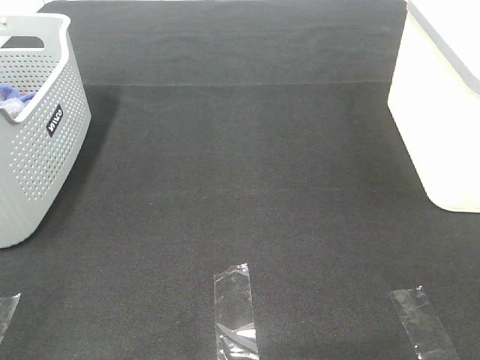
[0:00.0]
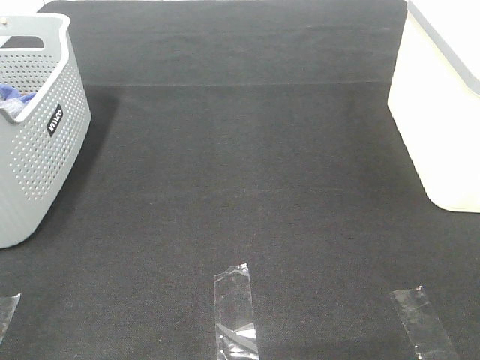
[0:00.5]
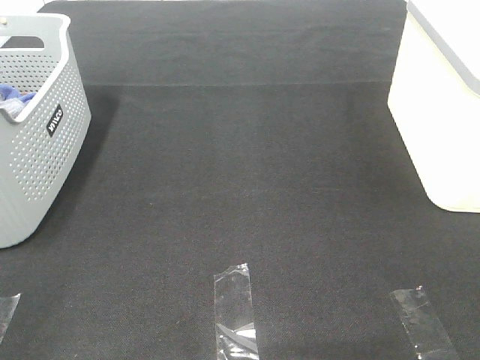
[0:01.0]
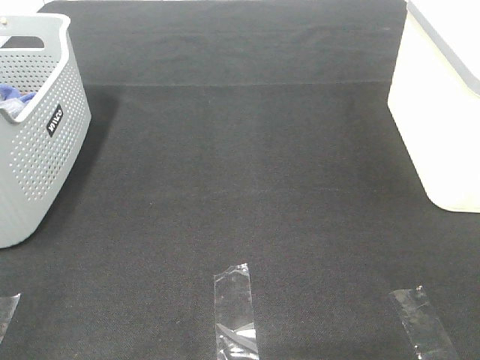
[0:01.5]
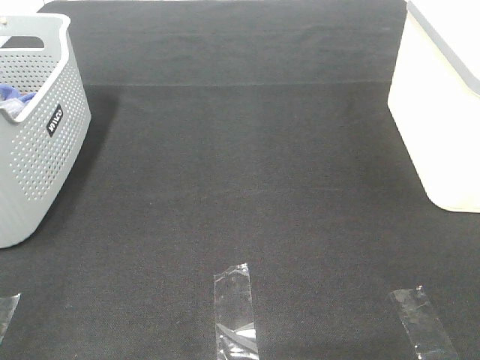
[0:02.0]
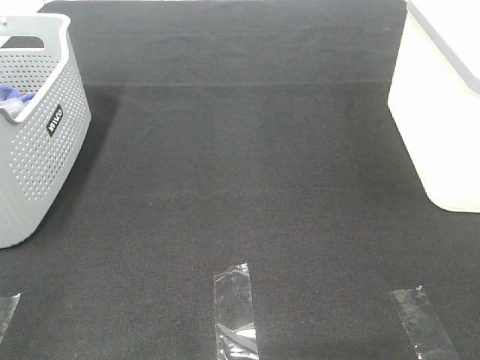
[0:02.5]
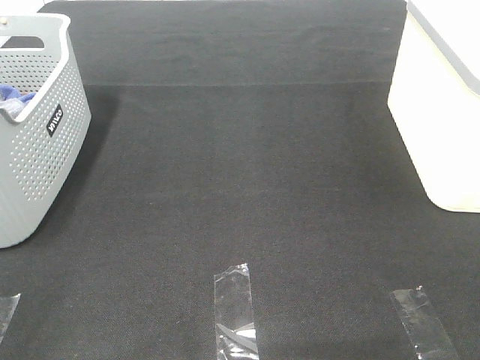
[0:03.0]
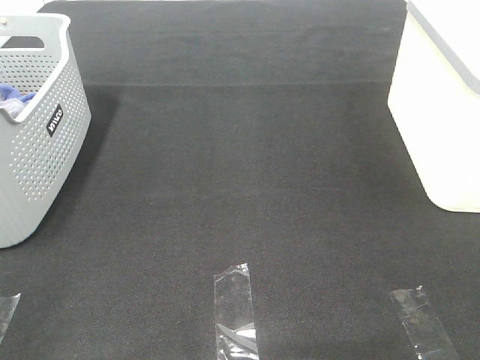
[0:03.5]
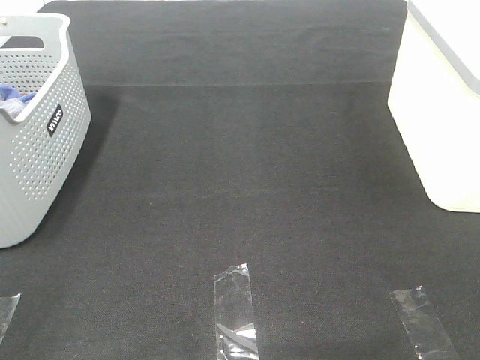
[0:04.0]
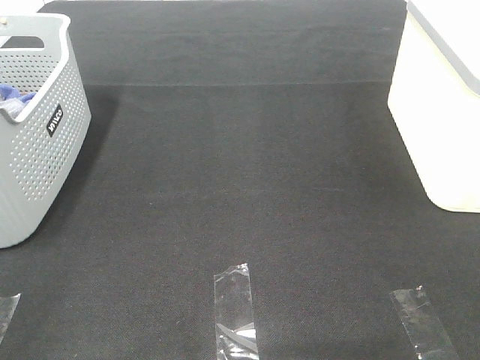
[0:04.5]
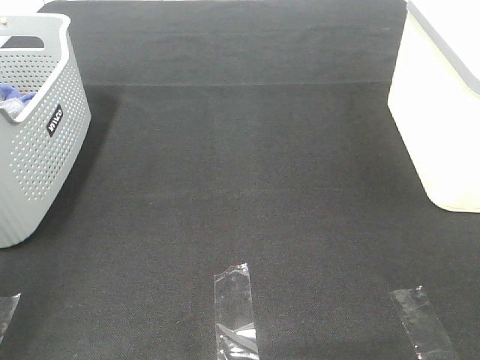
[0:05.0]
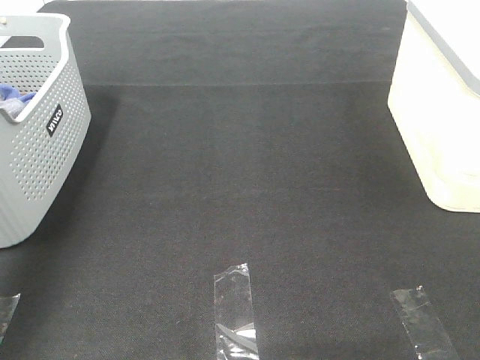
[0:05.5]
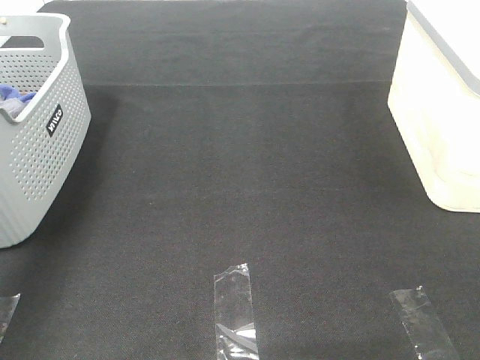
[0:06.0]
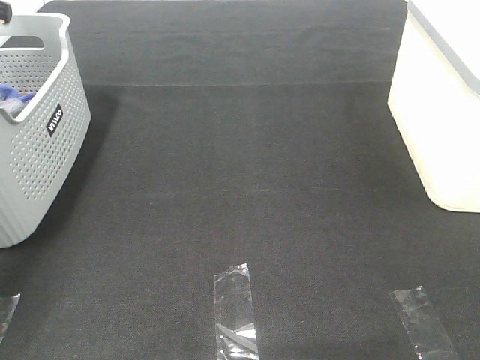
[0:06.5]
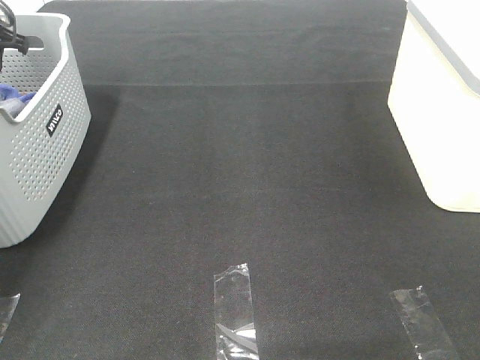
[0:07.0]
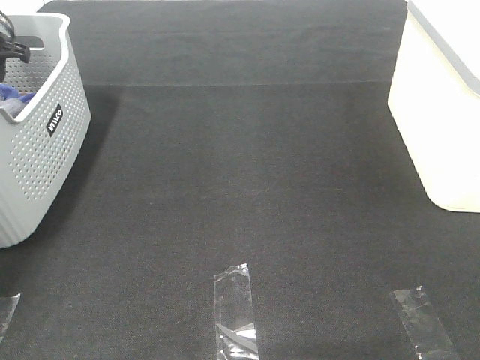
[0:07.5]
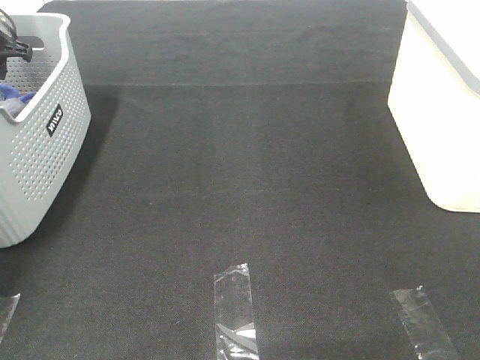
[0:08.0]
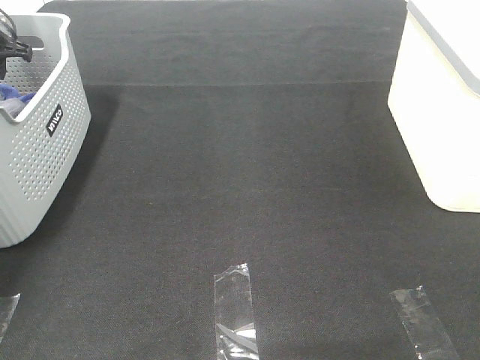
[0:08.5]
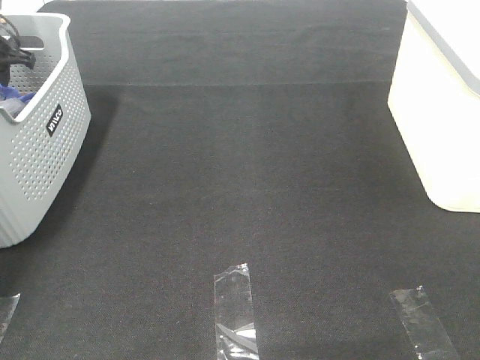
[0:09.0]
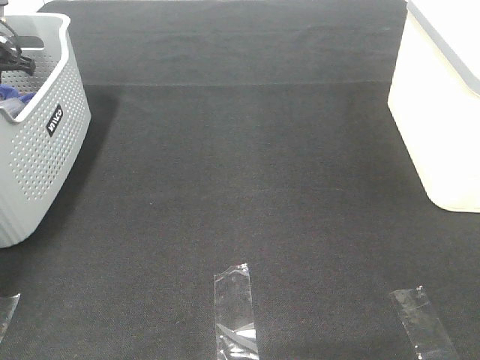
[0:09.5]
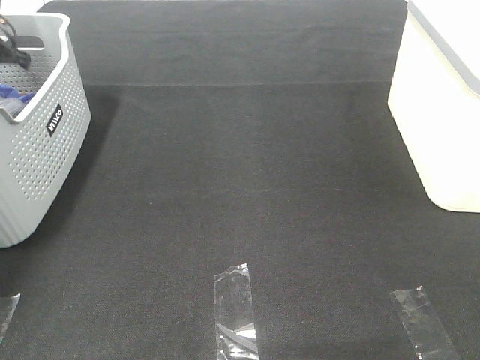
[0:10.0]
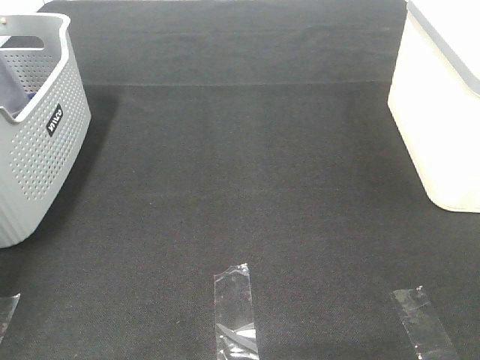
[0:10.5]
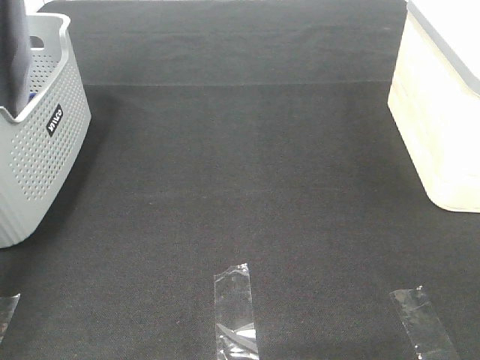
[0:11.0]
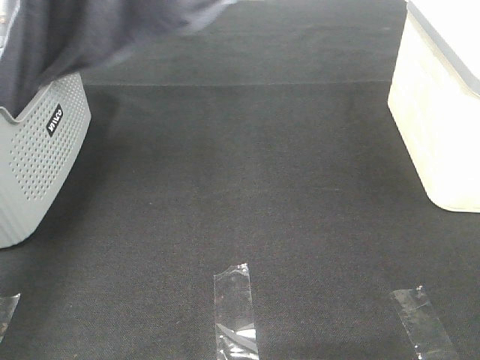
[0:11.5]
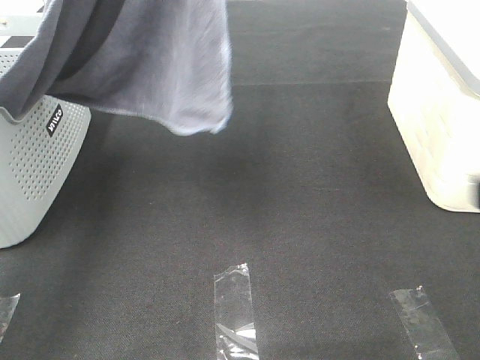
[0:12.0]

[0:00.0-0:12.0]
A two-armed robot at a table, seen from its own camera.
Task of the whole recording: Remove the towel and place it.
0:00.0 to 0:04.0: The two grippers keep their place.
0:04.0 to 0:06.0: The left gripper travels forward by about 40 cm.
0:06.0 to 0:08.0: The left gripper travels downward and forward by roughly 20 cm.
0:10.0 to 0:12.0: The right gripper heads forward, covering approximately 10 cm; the left gripper goes some 40 cm upward, to the right and backward.

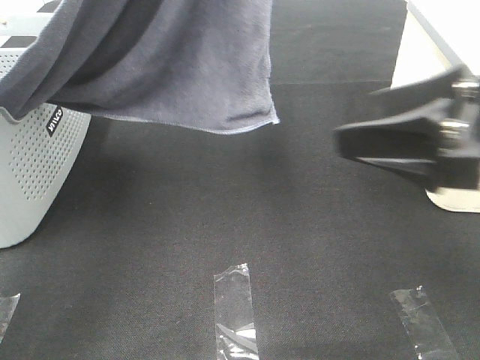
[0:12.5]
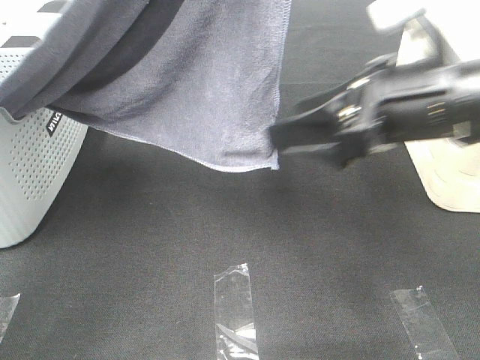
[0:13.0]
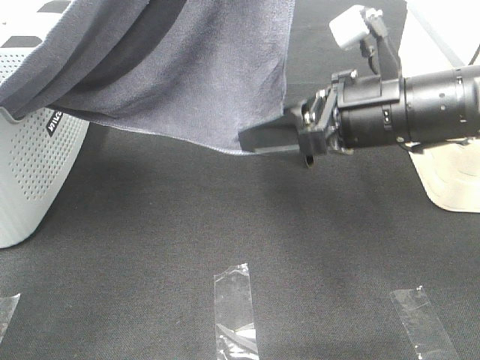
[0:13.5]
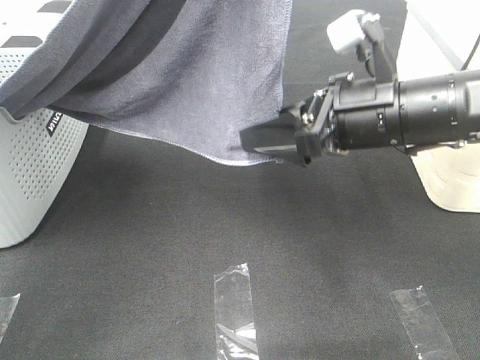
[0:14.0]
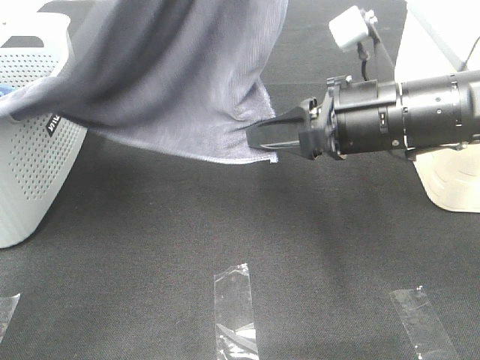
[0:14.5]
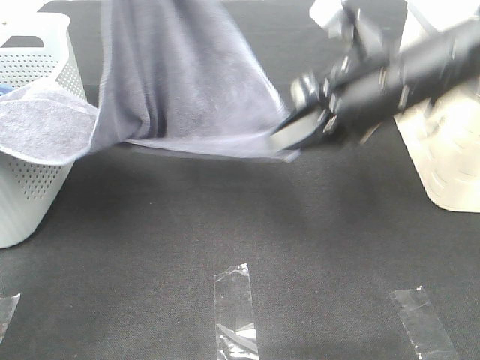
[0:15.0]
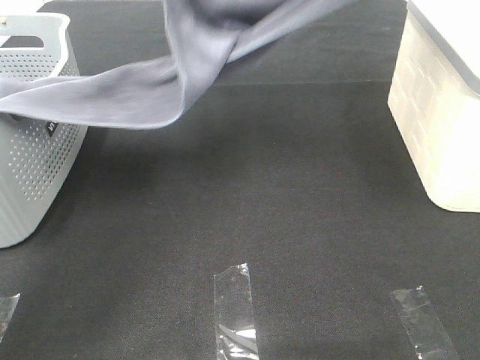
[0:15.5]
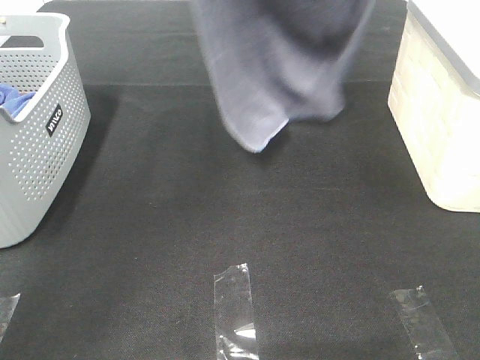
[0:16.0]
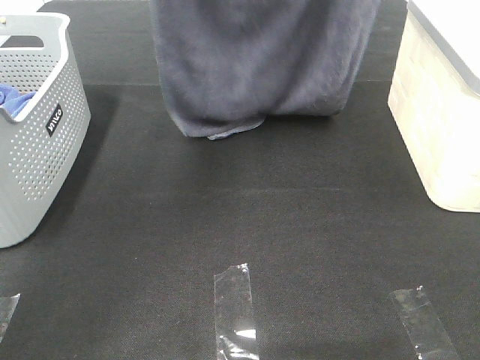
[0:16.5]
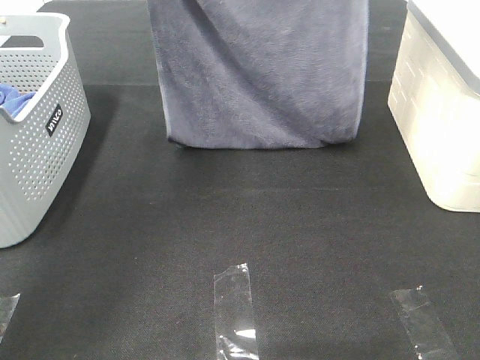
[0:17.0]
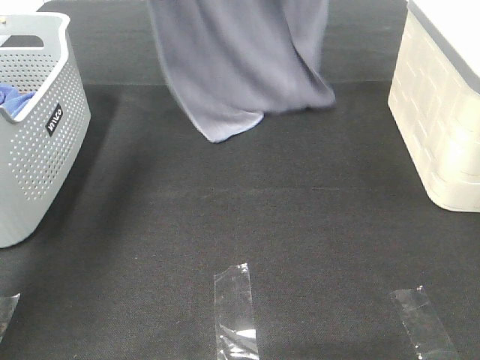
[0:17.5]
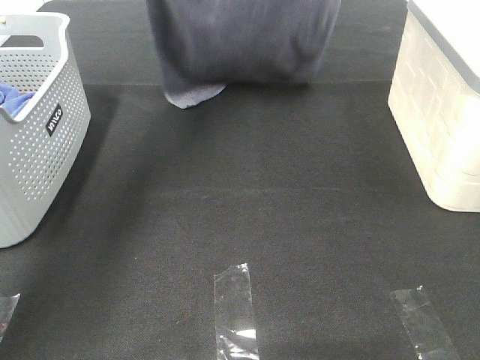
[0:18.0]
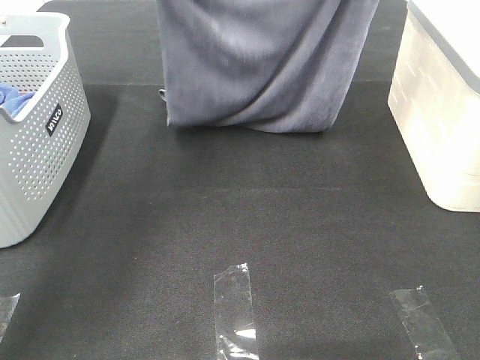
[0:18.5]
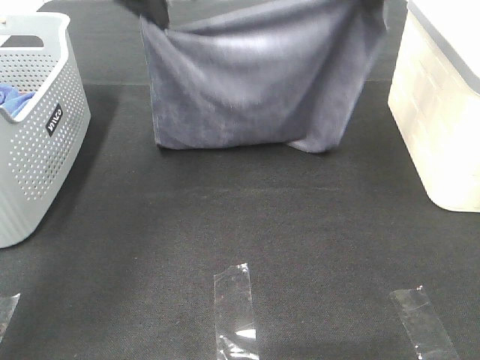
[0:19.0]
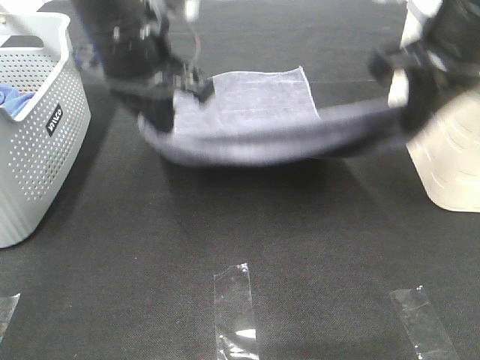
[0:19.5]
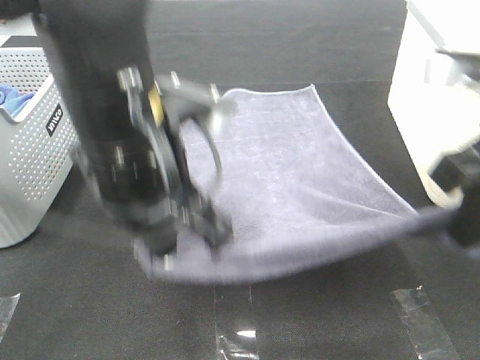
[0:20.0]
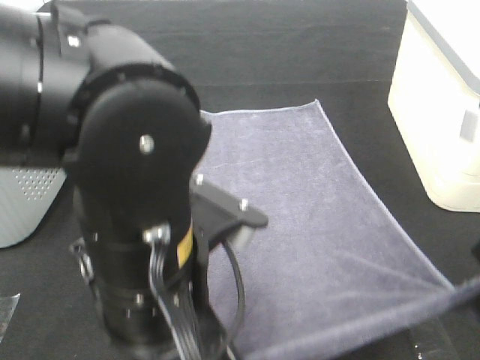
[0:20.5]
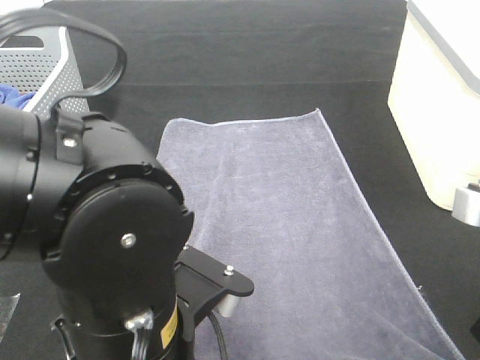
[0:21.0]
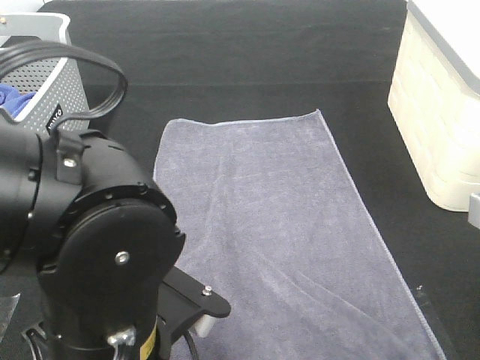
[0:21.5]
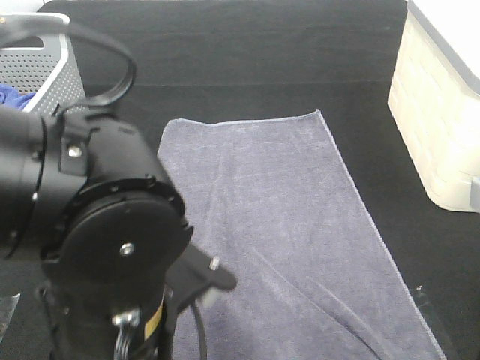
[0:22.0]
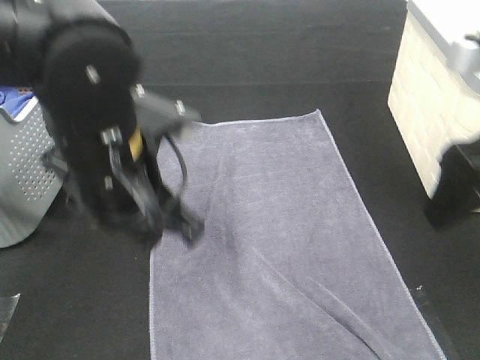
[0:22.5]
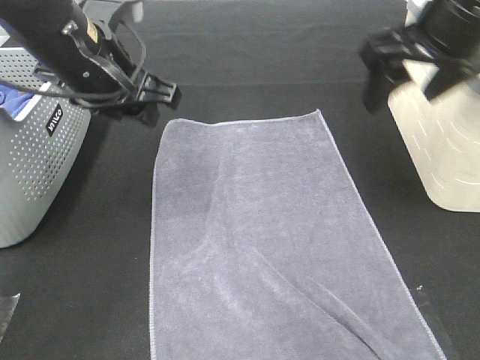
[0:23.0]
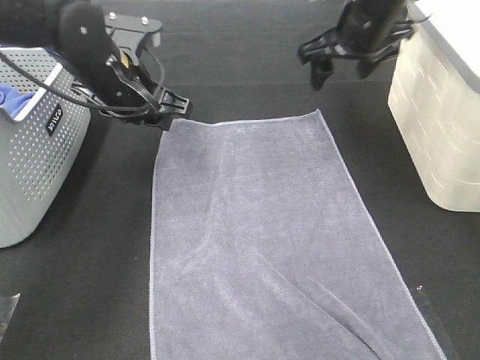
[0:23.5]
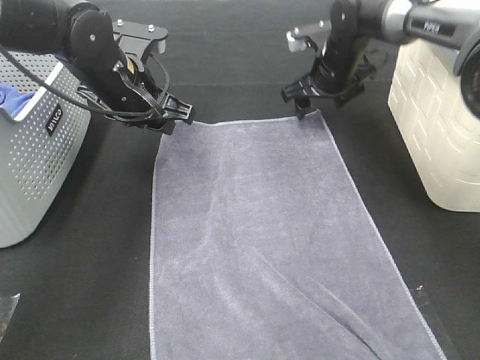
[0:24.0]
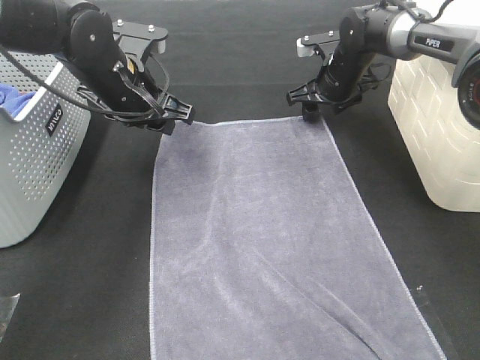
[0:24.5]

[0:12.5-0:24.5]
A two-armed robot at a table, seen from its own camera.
Task of the whole recording: Remove the towel and place it.
Step, 0:14.0 to 0:17.5: Left hand: spread the grey towel flat on the table.
Step, 0:14.0 to 0:17.5: Right hand: spread the grey towel flat on the table.
0:12.5 to 0:14.5: The right gripper shifts some 10 cm forward, to the left and downward, and closes.
0:14.5 to 0:16.5: The left gripper travels forward by about 10 cm. Meanwhile the right gripper is displaced upward by roughly 30 cm.
0:16.5 to 0:18.5: The right gripper swings up and down, about 10 cm each way, with 2 reversals; the left gripper shifts roughly 15 cm downward and forward.
0:18.5 to 0:20.5: Both grippers move backward and downward, approximately 35 cm.
0:20.5 to 0:22.5: The left gripper moves forward, approximately 10 cm, and opens. Meanwhile the right gripper travels forward by approximately 5 cm, and opens up.
0:22.5 to 0:24.5: The right gripper moves forward and downward, approximately 40 cm; the left gripper goes some 15 cm forward.

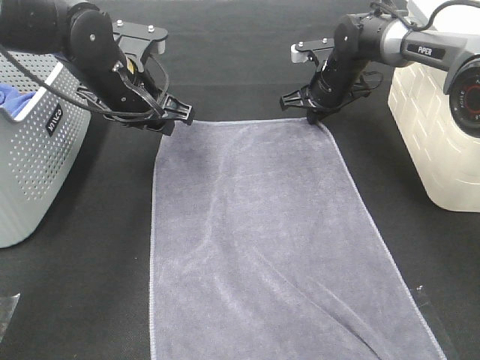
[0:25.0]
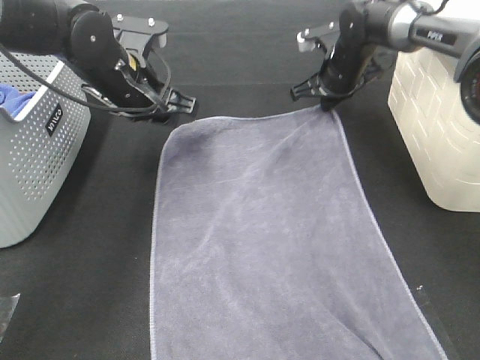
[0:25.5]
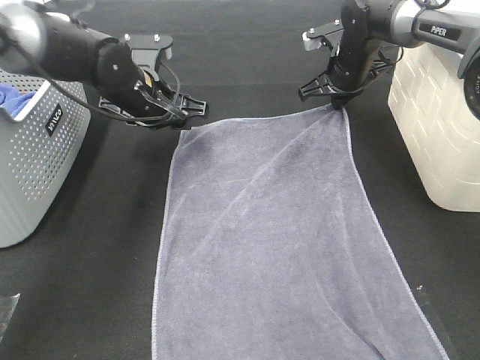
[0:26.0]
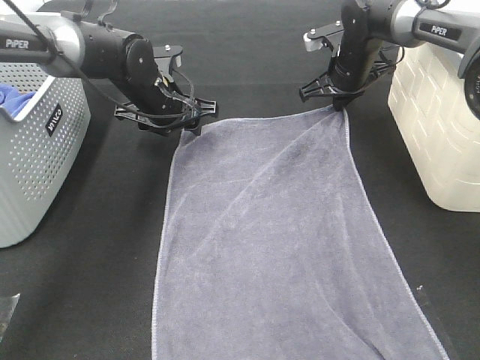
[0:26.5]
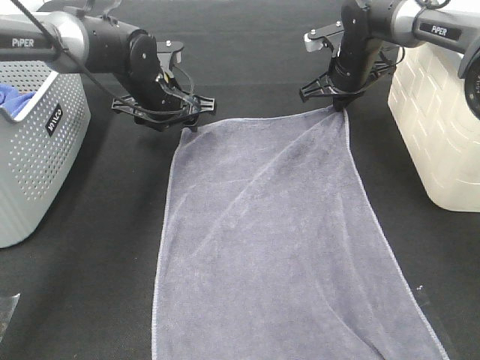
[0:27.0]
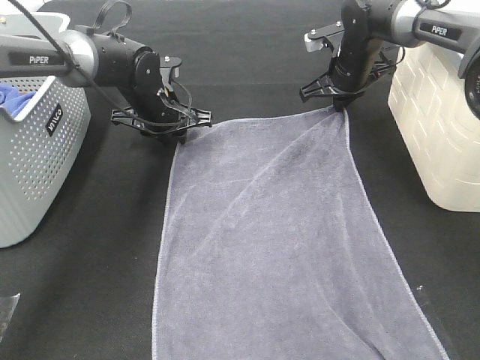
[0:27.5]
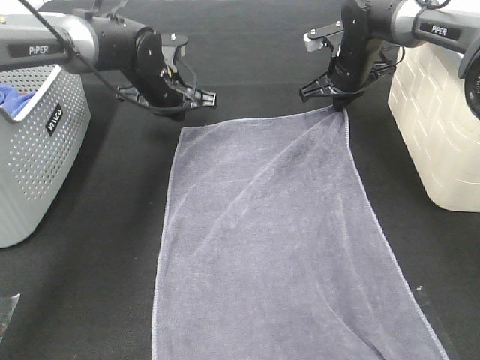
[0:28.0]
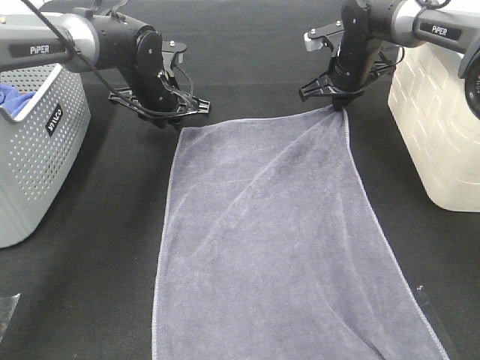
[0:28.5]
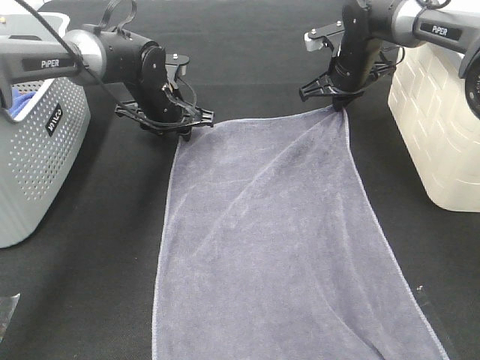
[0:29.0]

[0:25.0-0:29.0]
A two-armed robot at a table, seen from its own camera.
Task of the whole recording: Remove the towel and place it.
0:25.0 to 0:27.0: The left gripper heads forward and downward, covering approximately 10 cm.
0:27.0 to 0:29.0: The left gripper closes and opens again.
